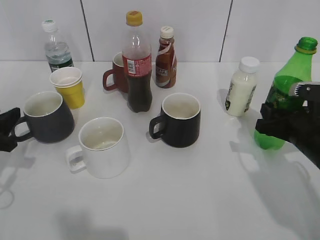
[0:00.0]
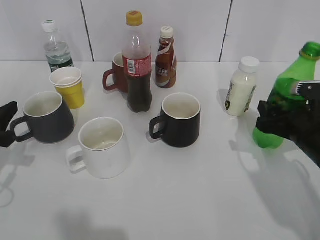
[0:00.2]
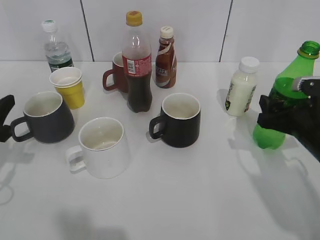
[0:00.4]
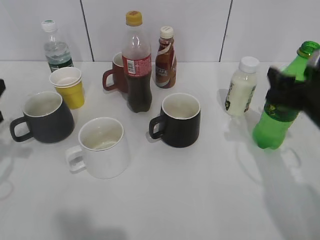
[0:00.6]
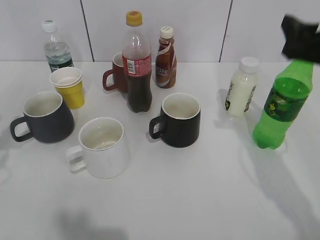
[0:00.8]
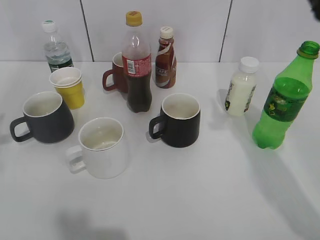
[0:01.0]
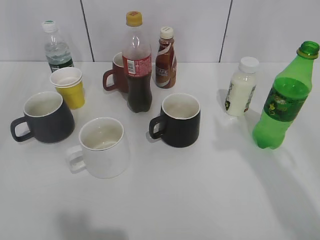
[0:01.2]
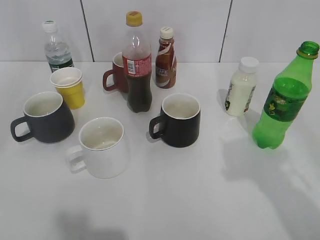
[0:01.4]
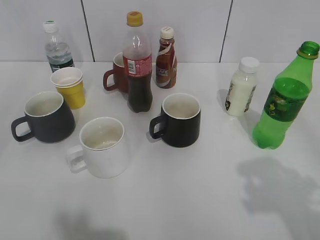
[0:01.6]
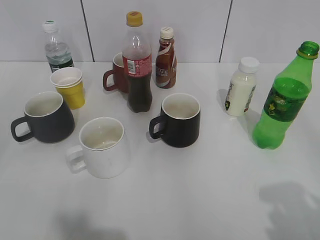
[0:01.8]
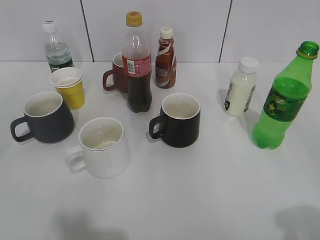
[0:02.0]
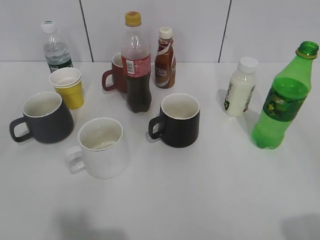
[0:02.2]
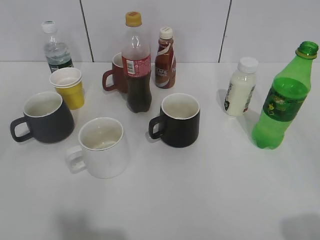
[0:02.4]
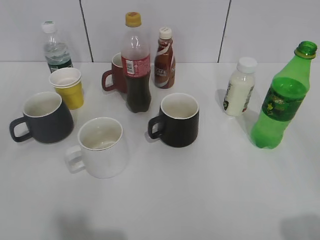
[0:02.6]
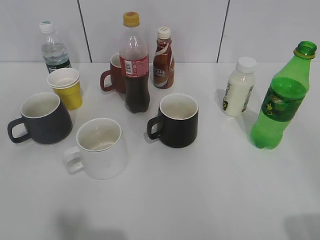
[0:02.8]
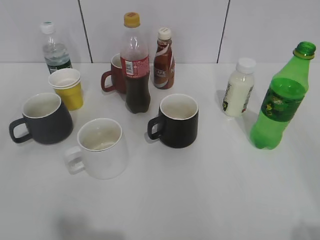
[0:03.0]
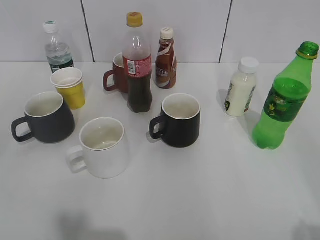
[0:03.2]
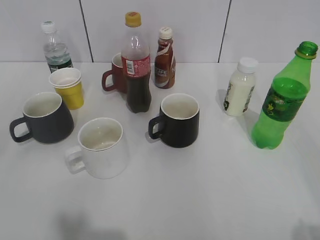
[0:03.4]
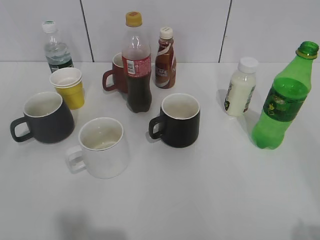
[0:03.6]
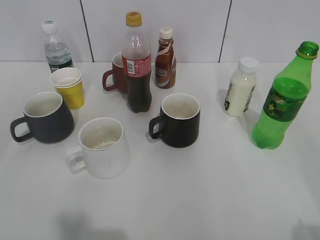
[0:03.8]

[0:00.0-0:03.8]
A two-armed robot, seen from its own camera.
0:00.0 to 0:01.2: Both grippers move upward, about 20 cm. The right gripper opens up.
0:01.2 to 0:02.6: The left gripper heads backward, covering about 15 cm. The right gripper goes about 20 cm backward and downward.
0:02.6 to 0:03.8: The grippers make only small movements.

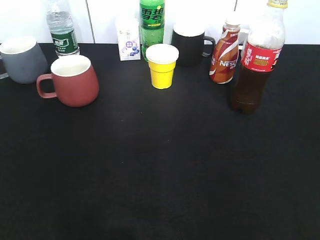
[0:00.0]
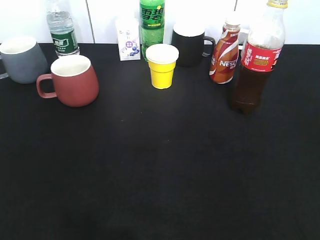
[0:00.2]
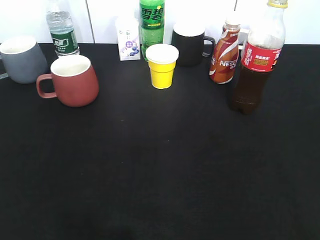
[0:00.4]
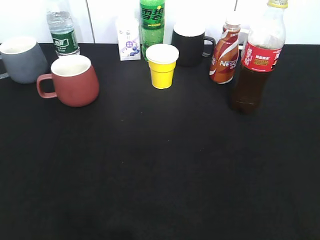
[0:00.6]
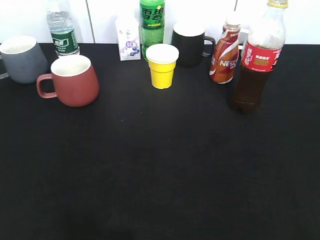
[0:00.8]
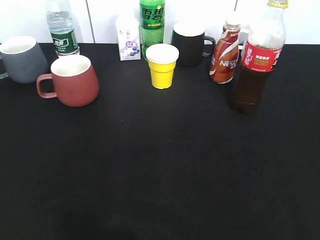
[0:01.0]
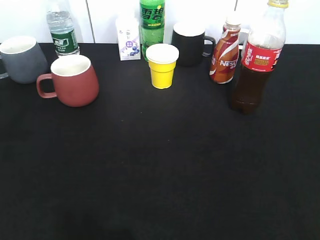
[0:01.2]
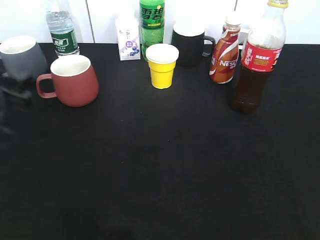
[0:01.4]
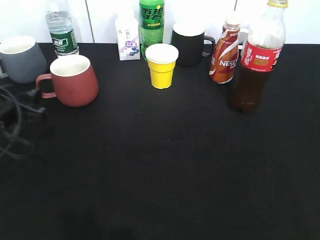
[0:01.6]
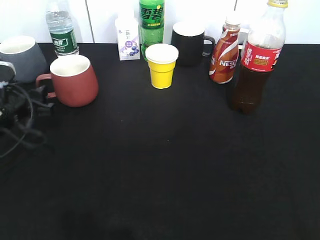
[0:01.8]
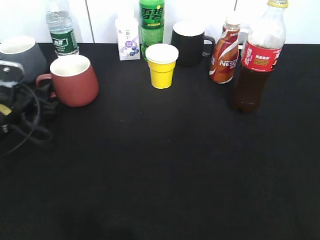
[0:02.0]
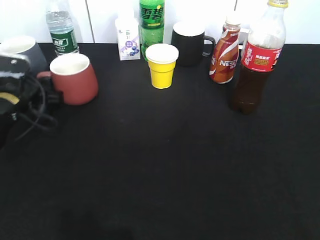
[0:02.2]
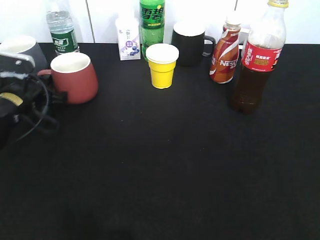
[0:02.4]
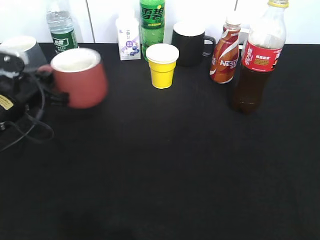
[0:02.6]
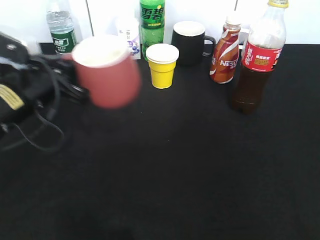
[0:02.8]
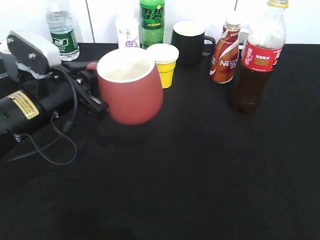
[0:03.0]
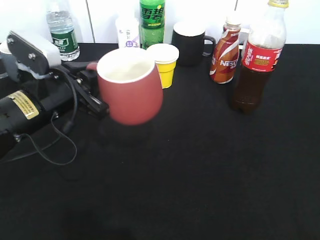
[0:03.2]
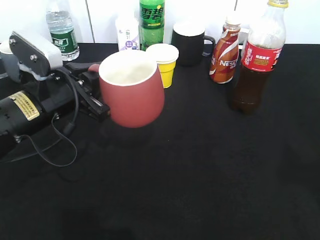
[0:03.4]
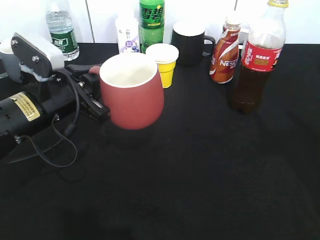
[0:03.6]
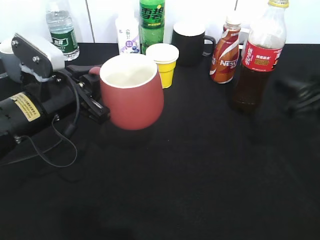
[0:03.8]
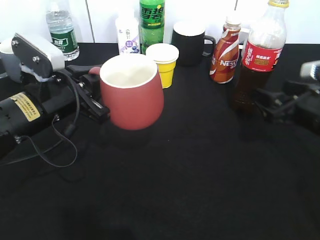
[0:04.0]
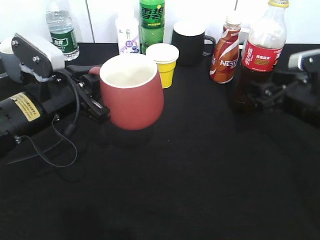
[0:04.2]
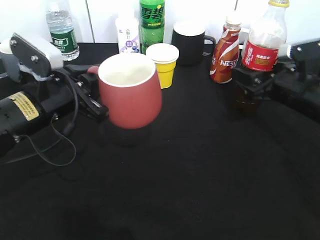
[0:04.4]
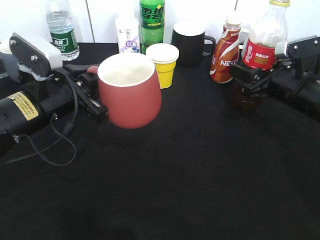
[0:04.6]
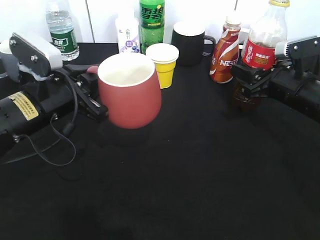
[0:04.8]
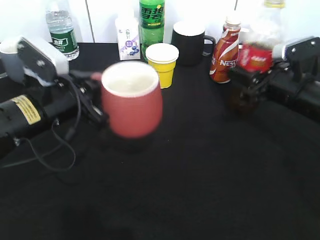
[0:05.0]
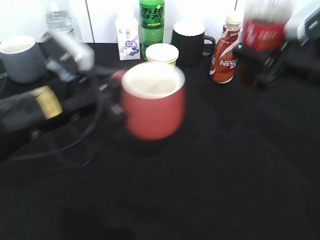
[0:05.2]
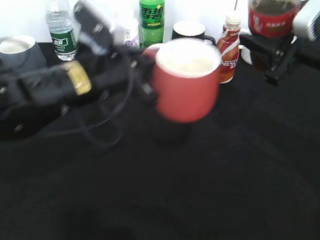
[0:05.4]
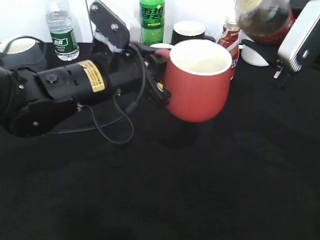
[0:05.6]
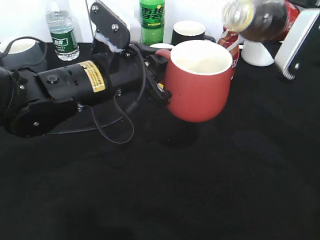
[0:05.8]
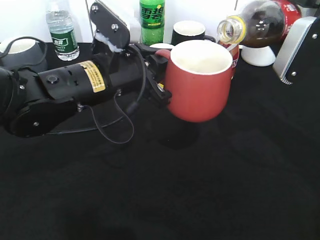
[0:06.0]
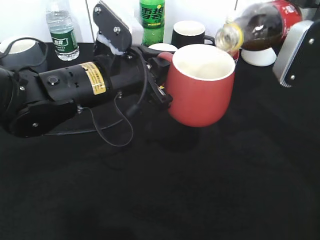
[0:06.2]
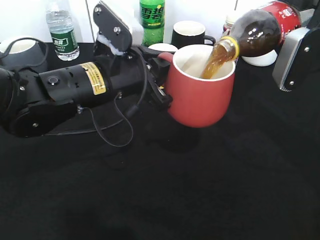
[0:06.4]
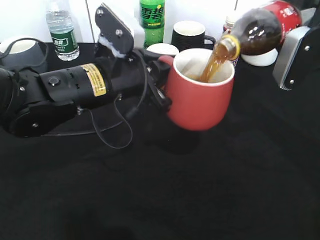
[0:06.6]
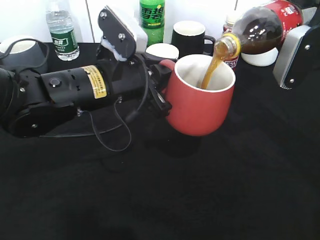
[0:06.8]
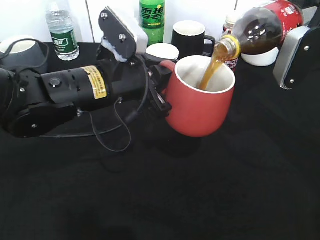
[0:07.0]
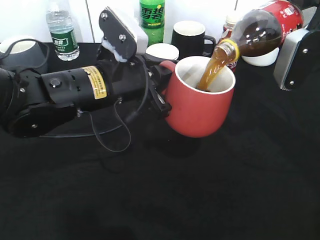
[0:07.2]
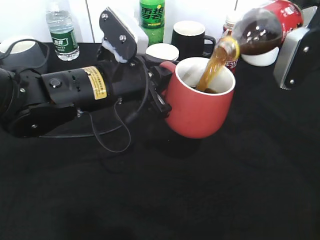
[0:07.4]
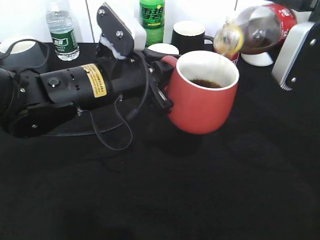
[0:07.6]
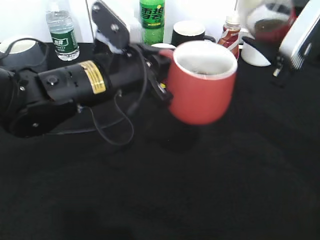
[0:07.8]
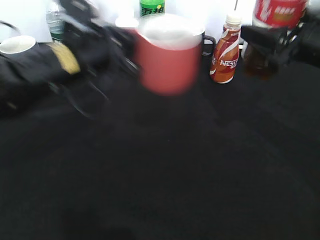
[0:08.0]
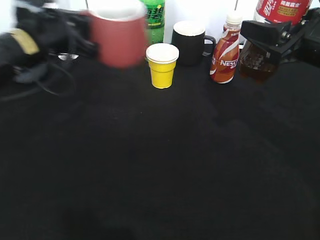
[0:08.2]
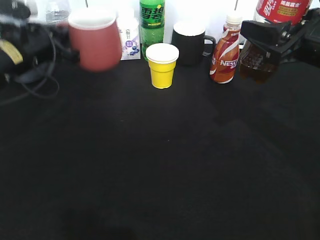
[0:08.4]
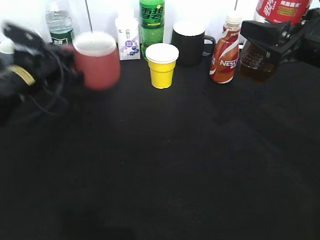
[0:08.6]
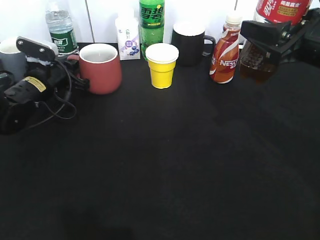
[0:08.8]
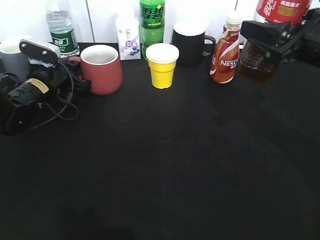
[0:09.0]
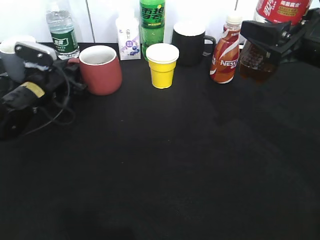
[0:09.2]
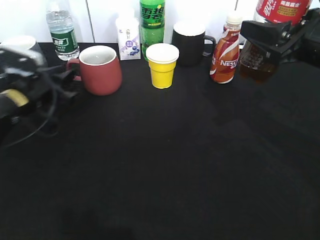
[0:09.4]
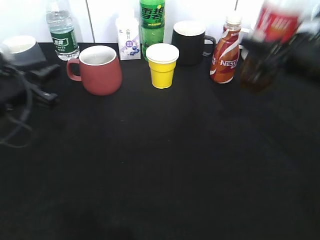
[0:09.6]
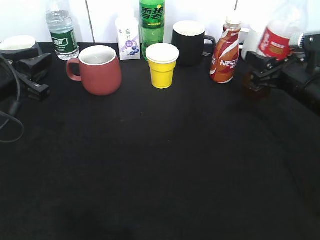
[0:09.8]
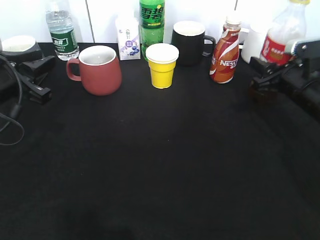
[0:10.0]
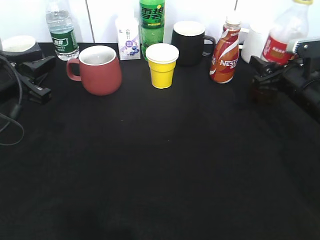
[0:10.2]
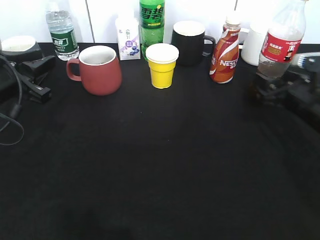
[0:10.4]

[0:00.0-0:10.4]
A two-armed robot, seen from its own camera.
Step, 0:00.6 to 0:02.2: Grasp the red cup with left gripper.
Step, 0:02.6 to 0:03.4: Lift the red cup with left gripper.
Step, 0:03.6 to 0:04.6: Grasp the bottle with cola with right gripper.
Step, 0:04.8 to 0:07.8: Pour the cola from bottle to cup with right gripper.
Step, 0:08.0 to 0:09.4: Place the red cup on the table with left gripper.
0:01.4 to 0:03.0: The left gripper shifts roughly 10 cm to the right, moves roughly 10 cm forward and comes back, and closes up.
0:03.0 to 0:04.4: The right gripper shifts about 35 cm forward and downward, and opens its fingers.
0:04.4 to 0:06.0: The left gripper travels to the right by about 10 cm; the right gripper is displaced upward by some 10 cm, and closes its fingers.
0:06.0 to 0:07.4: There are only small adjustments of the grippers.
0:07.4 to 0:09.0: The left gripper is displaced to the left, forward and downward by some 25 cm.
0:09.0 to 0:10.4: The right gripper goes roughly 10 cm downward, and opens up. The left gripper is displaced backward and upward by approximately 15 cm.

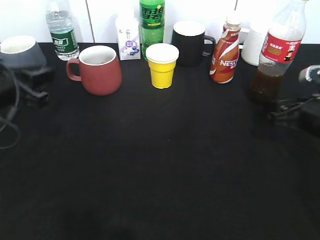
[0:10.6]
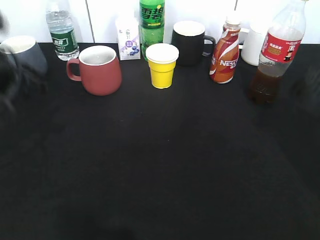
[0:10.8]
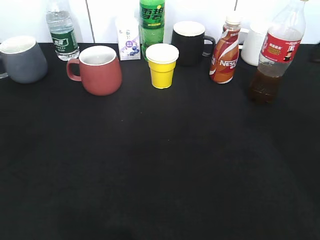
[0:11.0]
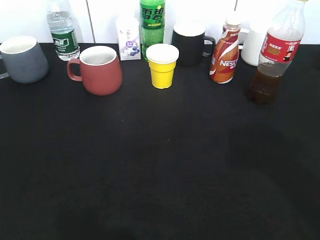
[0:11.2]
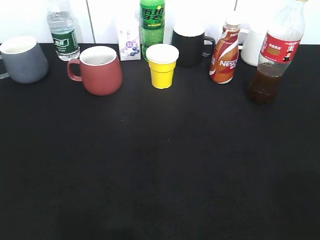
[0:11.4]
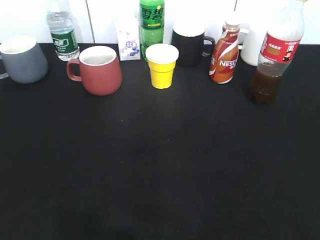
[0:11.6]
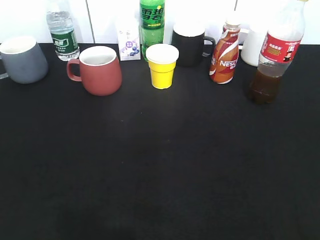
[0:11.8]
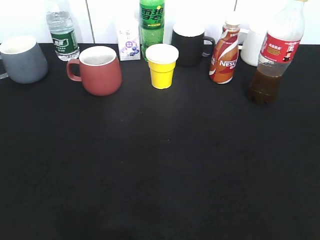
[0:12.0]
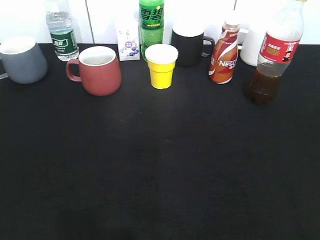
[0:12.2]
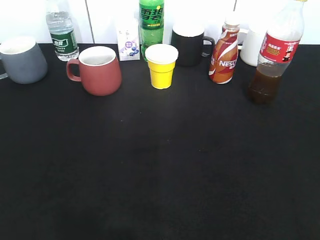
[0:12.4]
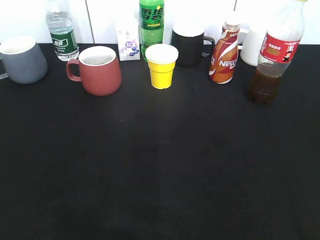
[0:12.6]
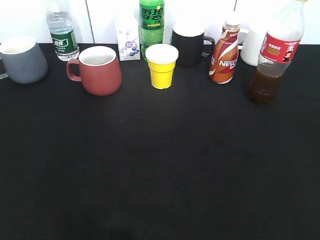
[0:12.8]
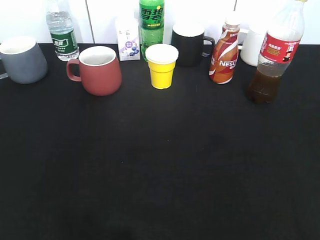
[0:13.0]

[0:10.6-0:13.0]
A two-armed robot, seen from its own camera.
0:10.6 to 0:11.8: The left gripper moves backward, about 25 cm, while the right gripper is displaced backward and upward by roughly 30 cm.

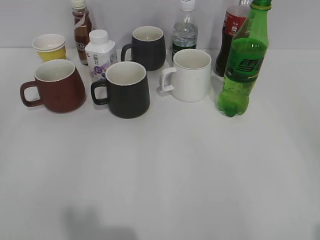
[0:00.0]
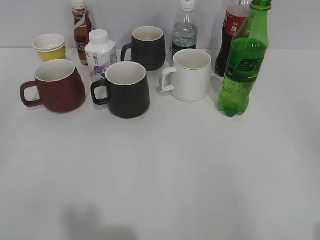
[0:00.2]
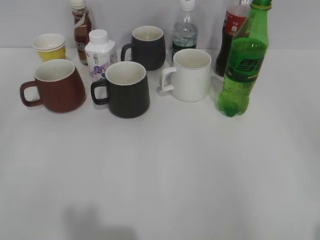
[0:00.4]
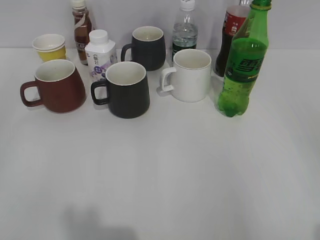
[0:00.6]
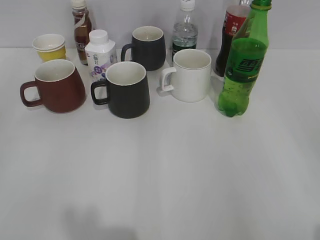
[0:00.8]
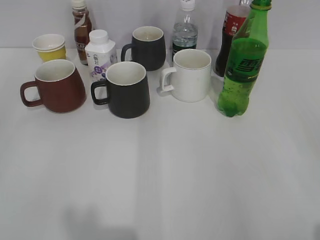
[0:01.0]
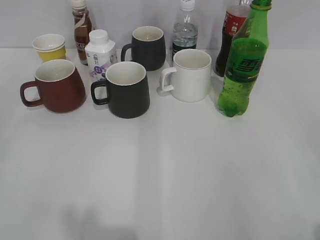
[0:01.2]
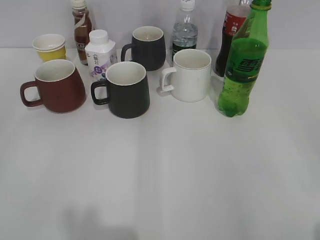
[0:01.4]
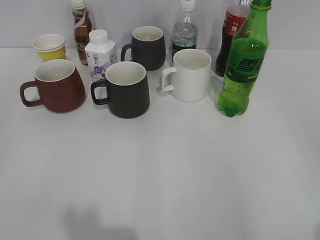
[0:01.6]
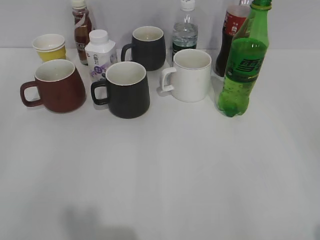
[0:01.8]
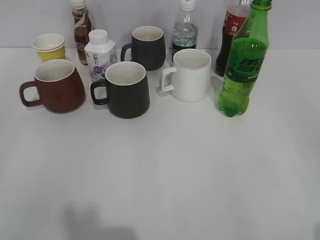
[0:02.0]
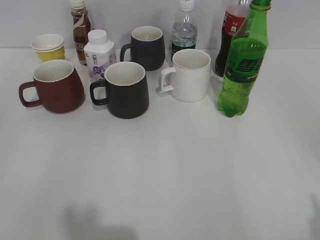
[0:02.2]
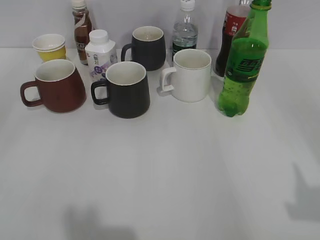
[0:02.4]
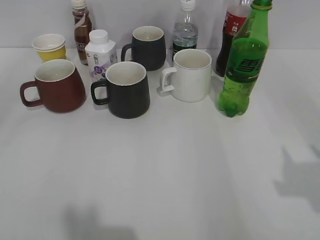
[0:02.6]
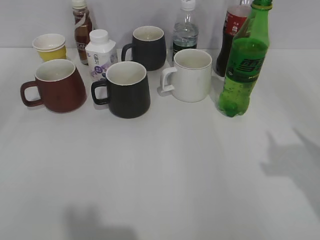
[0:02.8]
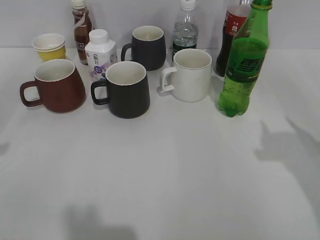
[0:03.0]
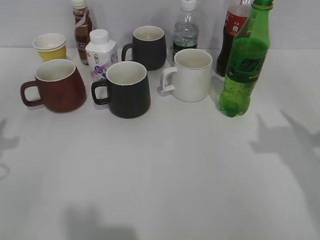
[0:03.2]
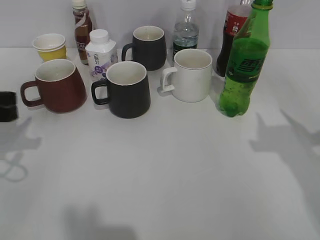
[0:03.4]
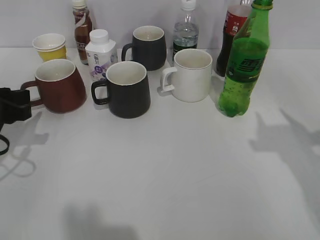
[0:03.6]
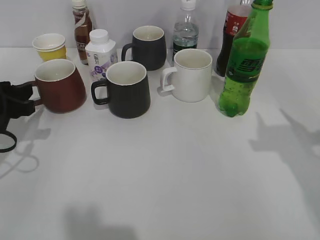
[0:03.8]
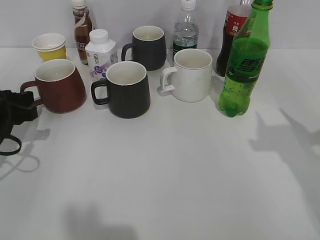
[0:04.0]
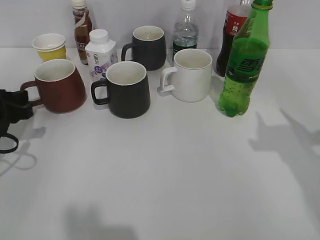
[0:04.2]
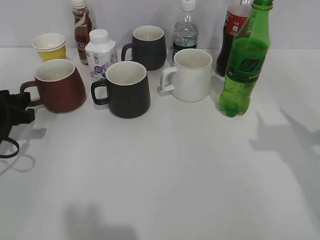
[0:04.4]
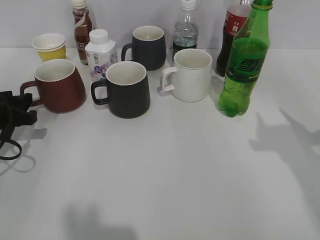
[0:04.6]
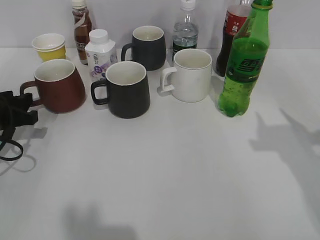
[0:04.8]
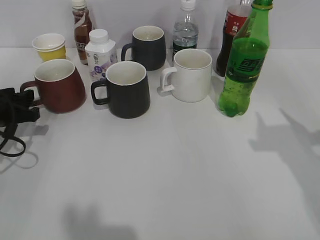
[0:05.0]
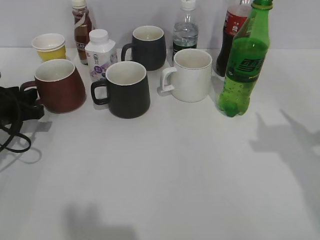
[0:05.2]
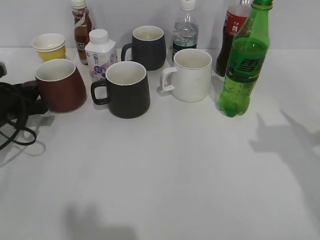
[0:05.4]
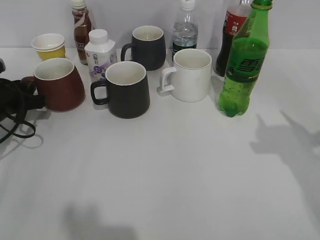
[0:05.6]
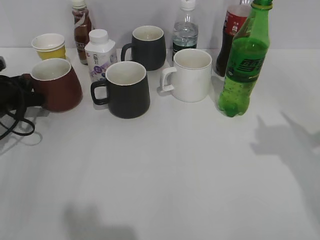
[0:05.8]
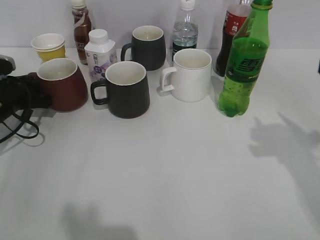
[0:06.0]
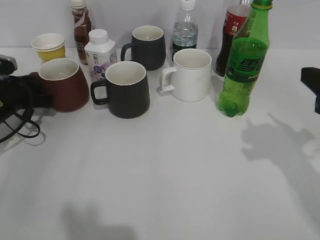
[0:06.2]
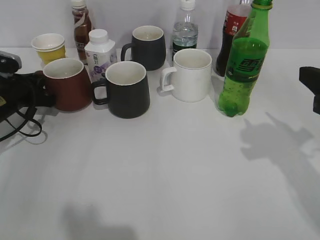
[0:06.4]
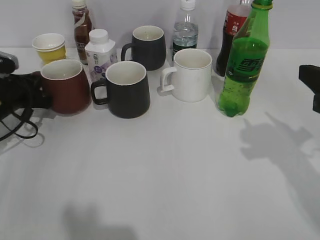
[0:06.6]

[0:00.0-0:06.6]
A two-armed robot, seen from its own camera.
Step, 0:01.8 to 0:06.4: Grasp the red cup with left gripper.
0:01.6 to 0:03.2: Both grippers move forward, roughly 20 cm.
0:03.2 to 0:05.0: The left gripper shifts about 10 cm downward and forward.
0:05.0 to 0:06.6: The left gripper travels forward by about 5 cm, and closes up.
